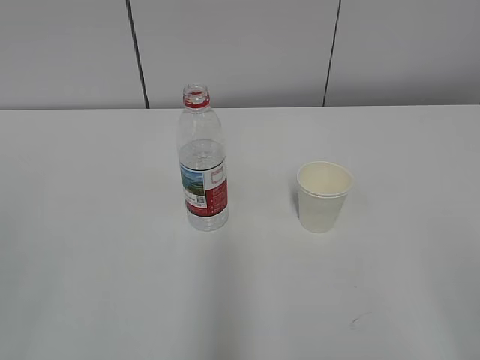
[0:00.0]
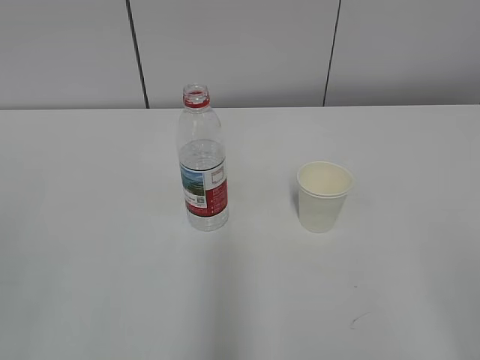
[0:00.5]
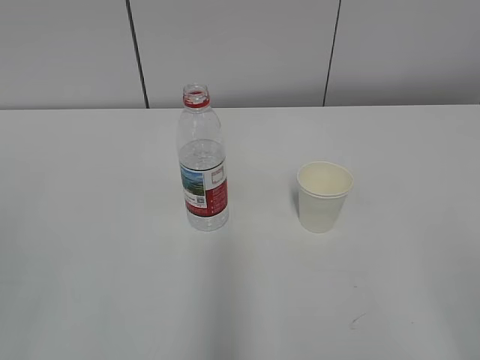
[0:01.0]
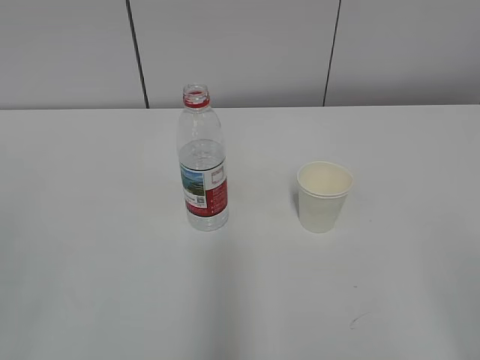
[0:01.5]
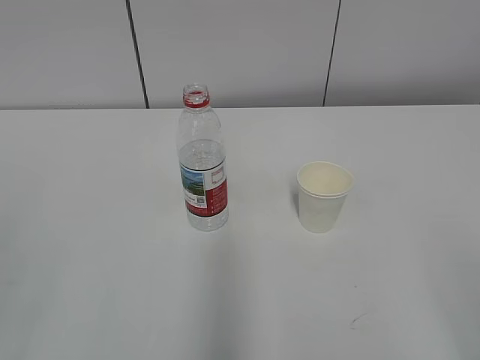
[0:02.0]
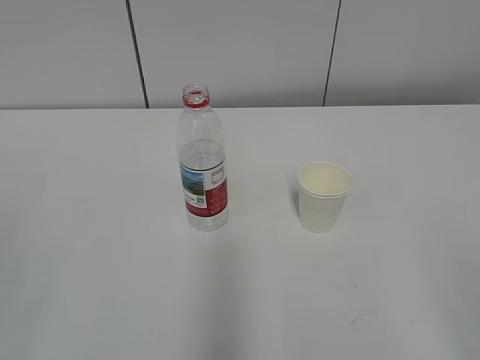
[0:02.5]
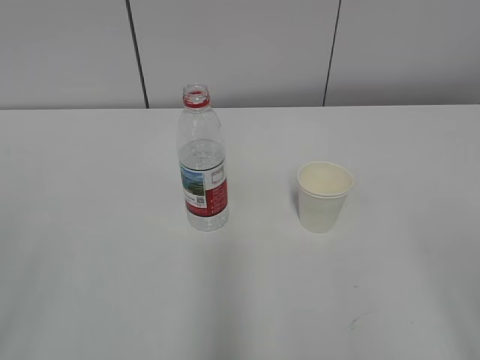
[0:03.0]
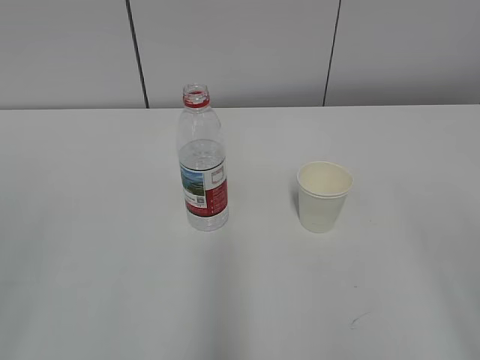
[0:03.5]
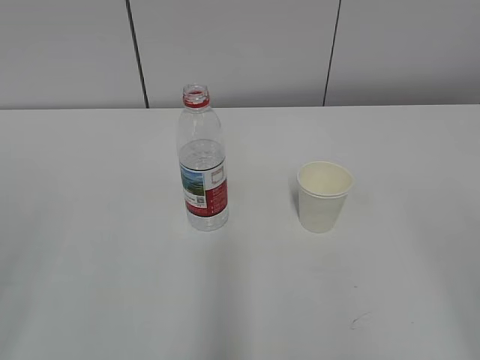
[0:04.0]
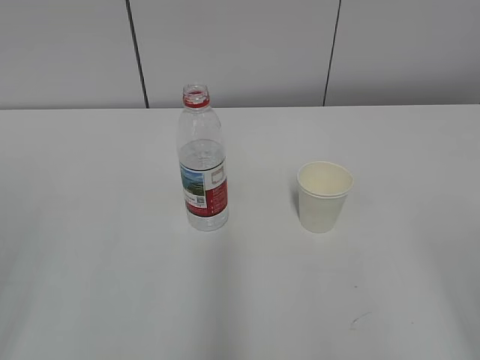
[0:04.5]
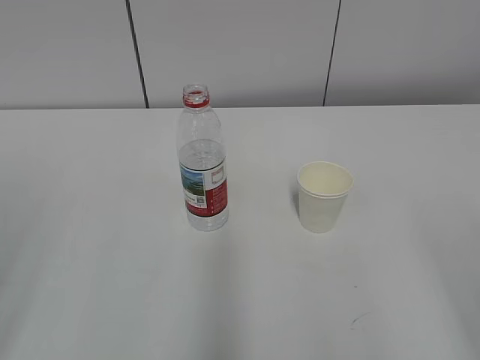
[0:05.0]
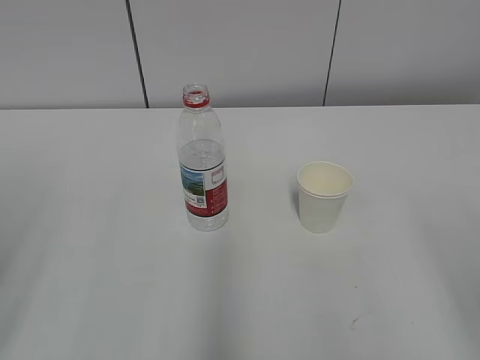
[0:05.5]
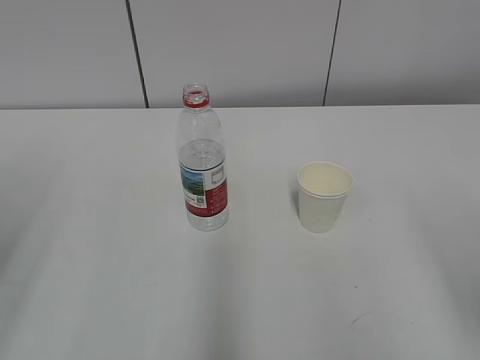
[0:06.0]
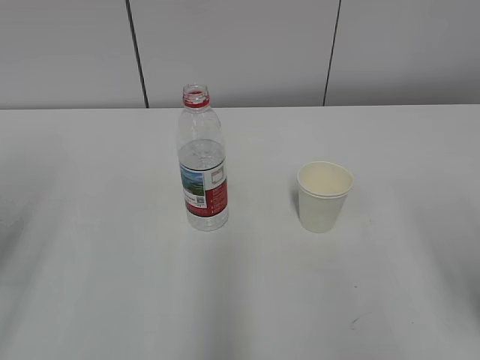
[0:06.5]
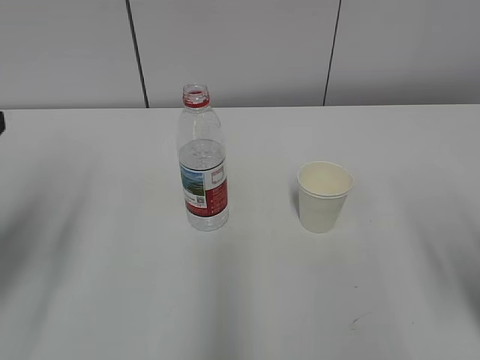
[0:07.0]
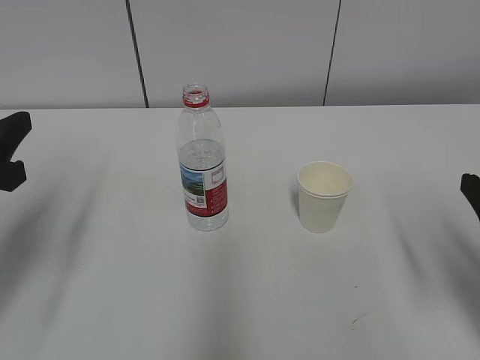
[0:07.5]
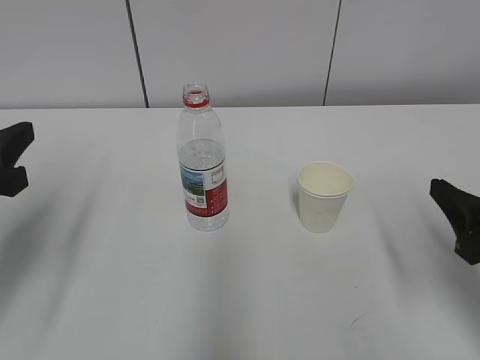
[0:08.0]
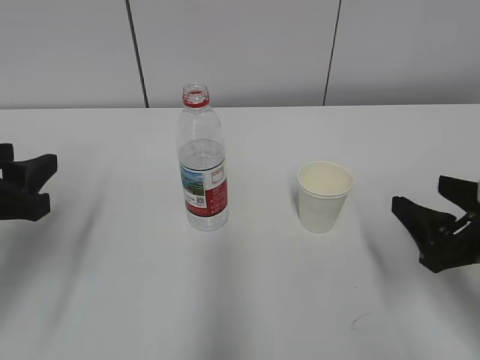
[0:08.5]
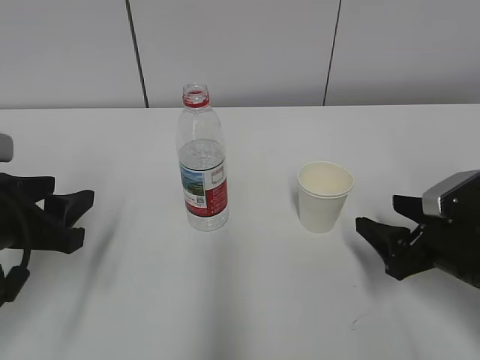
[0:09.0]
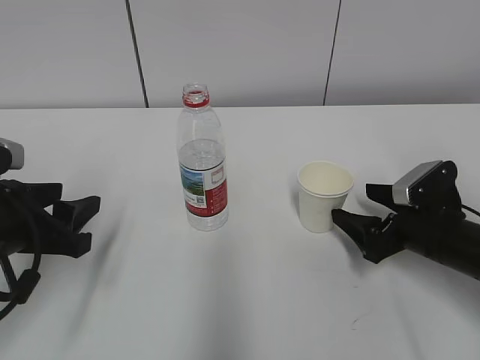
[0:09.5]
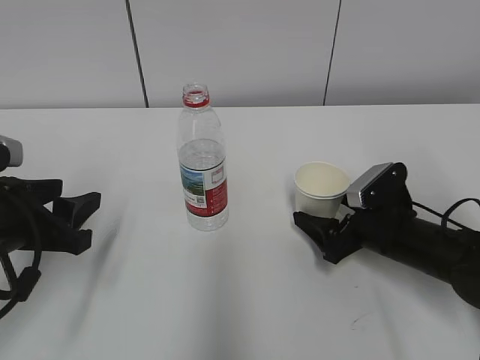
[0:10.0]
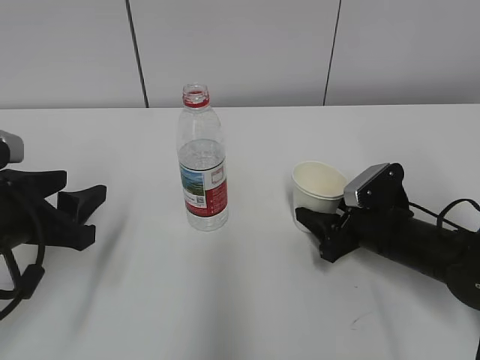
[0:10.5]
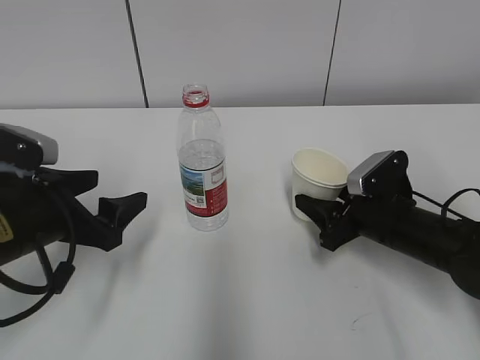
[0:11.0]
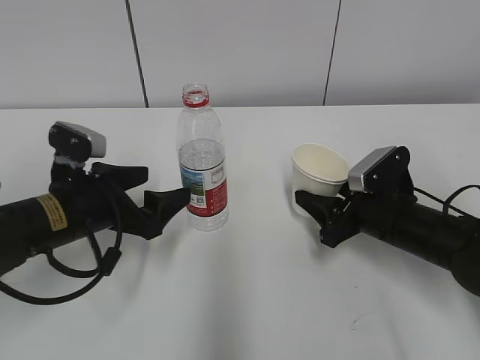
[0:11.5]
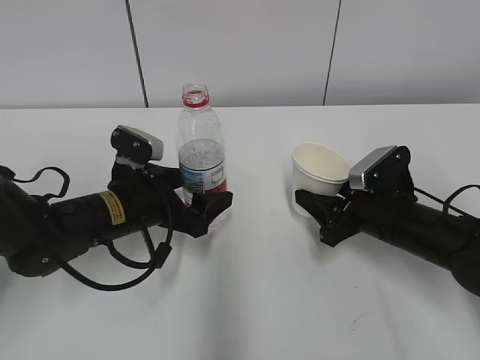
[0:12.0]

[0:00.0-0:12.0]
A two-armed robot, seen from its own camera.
Step, 0:00.0 to 0:08.5: Grab the paper cup with the right hand.
Step, 0:09.0 to 0:10.5: Grab the water bottle with the left hand.
0:06.0 to 0:08.0: Both grippers travel together forward and downward, about 10 cm.
0:08.0 to 0:10.0: The left gripper goes approximately 5 cm downward, while the right gripper travels forward, downward and to the left by roughly 20 cm.
0:10.0 to 0:12.0: The right gripper closes up. The left gripper moves to the right, forward and downward, approximately 15 cm, and opens.

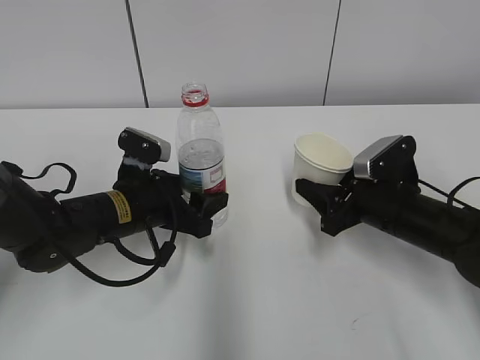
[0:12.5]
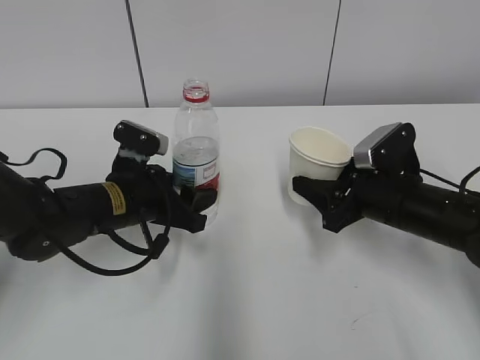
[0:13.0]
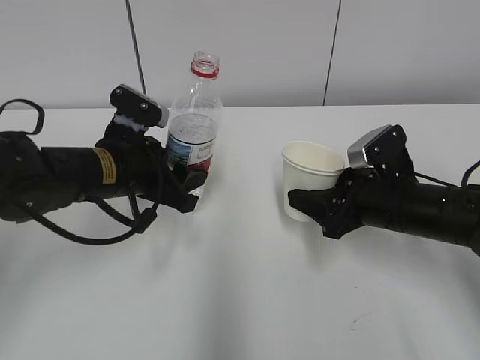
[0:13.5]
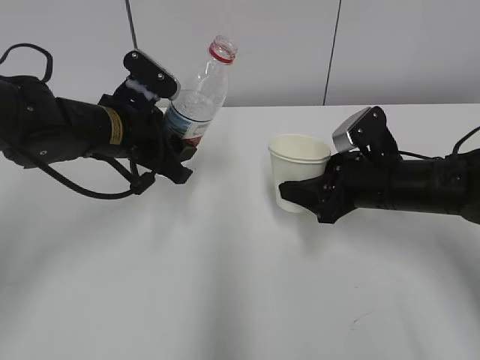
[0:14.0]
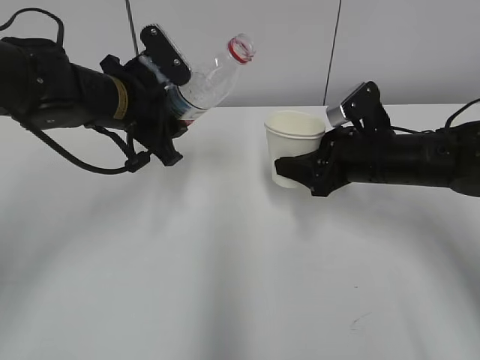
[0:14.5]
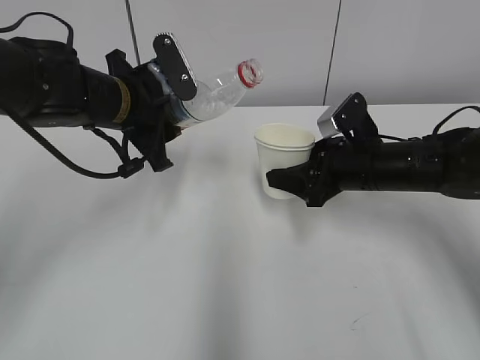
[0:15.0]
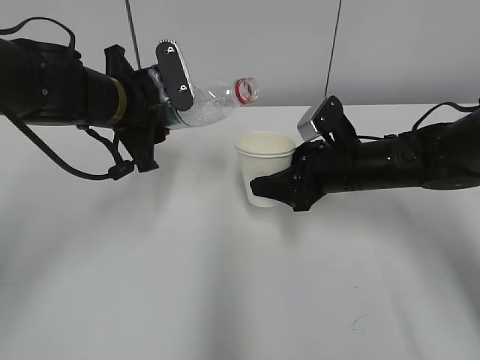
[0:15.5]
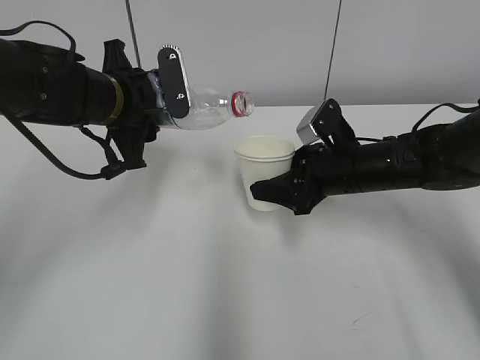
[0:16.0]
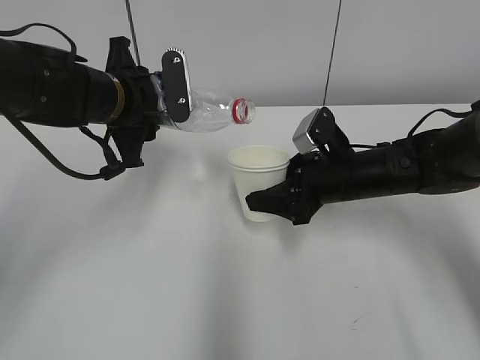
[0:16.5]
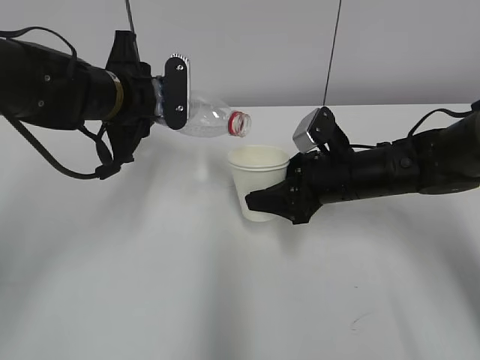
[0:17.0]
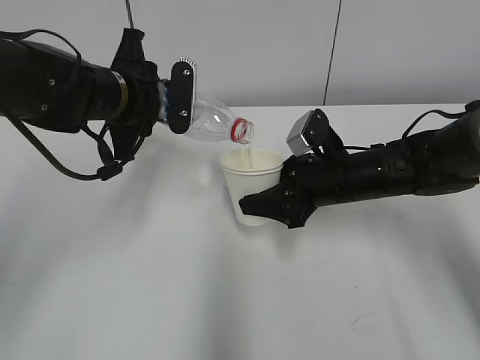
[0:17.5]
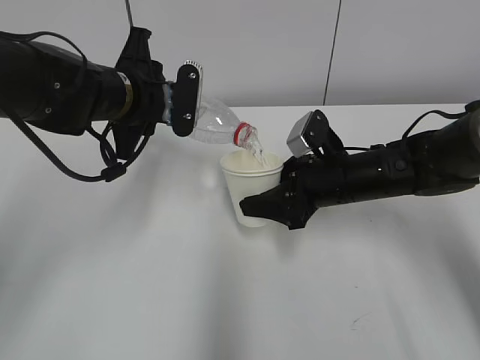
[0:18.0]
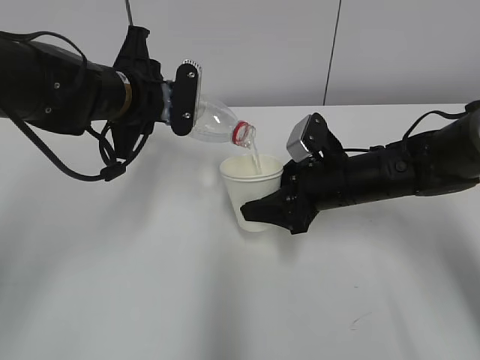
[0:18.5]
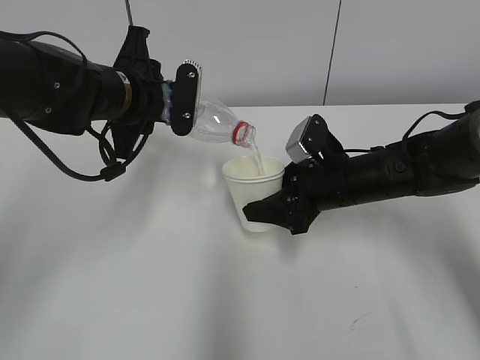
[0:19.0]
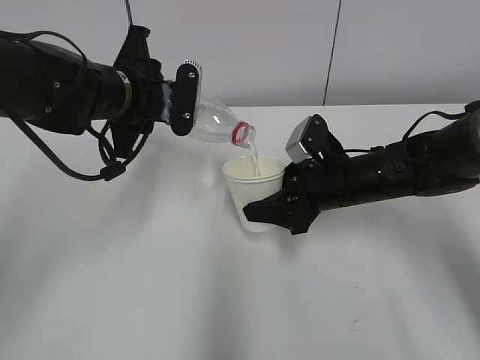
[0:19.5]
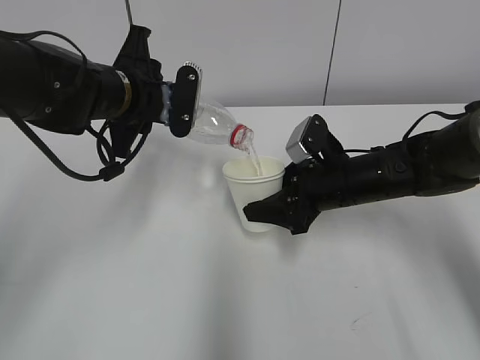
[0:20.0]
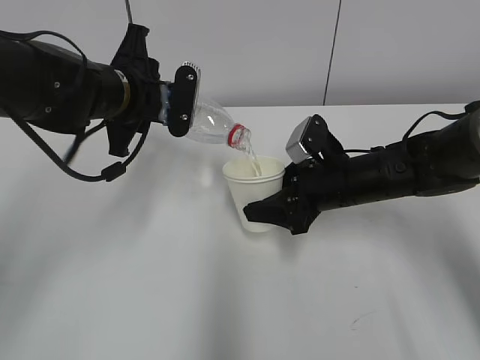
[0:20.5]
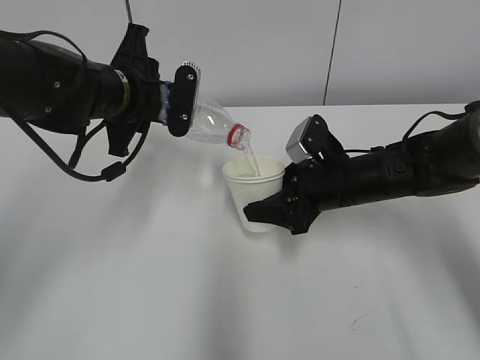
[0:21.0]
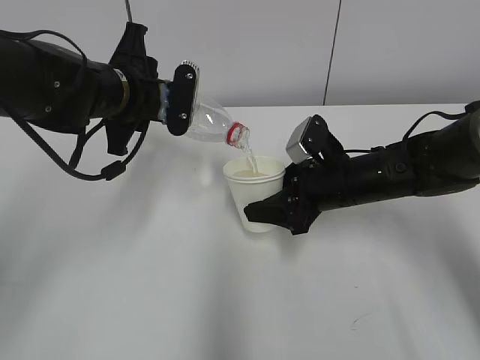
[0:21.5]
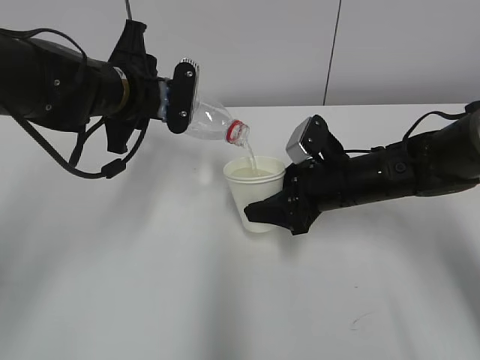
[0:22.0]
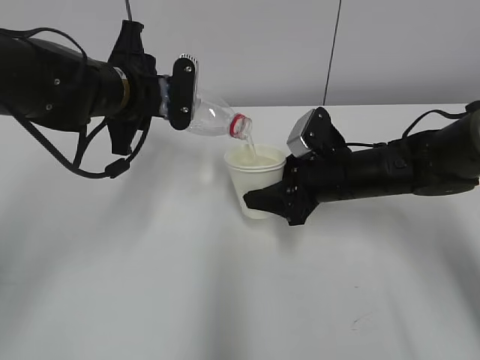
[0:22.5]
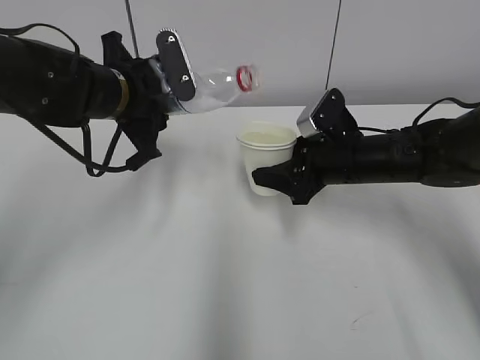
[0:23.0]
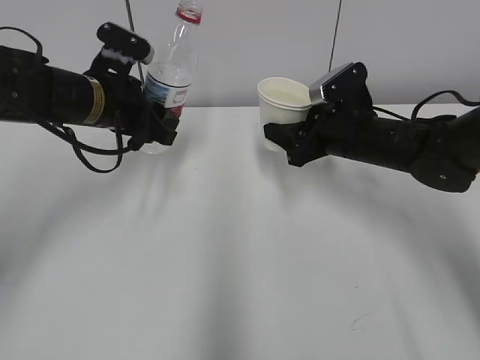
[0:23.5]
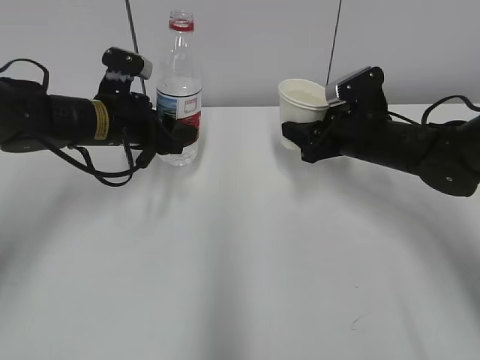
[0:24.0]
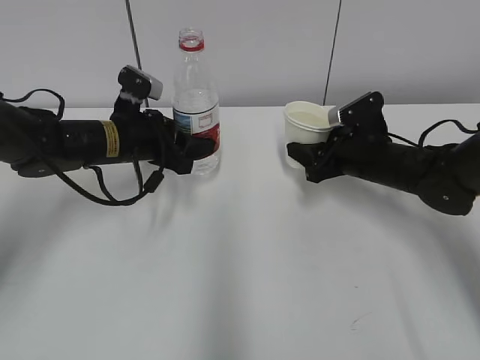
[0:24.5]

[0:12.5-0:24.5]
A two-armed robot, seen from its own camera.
Step, 0:14.5 to 0:18.5: Fill water with the right hand.
Step, 0:14.5 to 0:18.5: Pour water with the left hand.
Step, 0:20.5 to 0:22.0: Place the water bottle with the left hand.
0:12.5 to 0:14.5: The right gripper heads upward, covering some 5 cm; the left gripper moves upward and forward, about 15 cm.
0:16.5 to 0:18.5: The grippers stay close to where they were, moving slightly.
0:18.5 to 0:20.5: The two grippers keep their place.
0:20.5 to 0:22.5: Neither gripper changes place.
0:22.5 to 0:24.5: The right gripper is displaced to the right by approximately 5 cm. Meanwhile the left gripper goes some 10 cm downward.

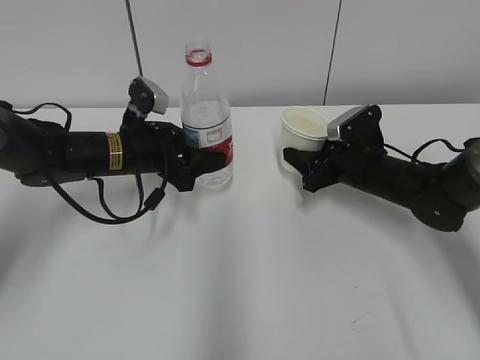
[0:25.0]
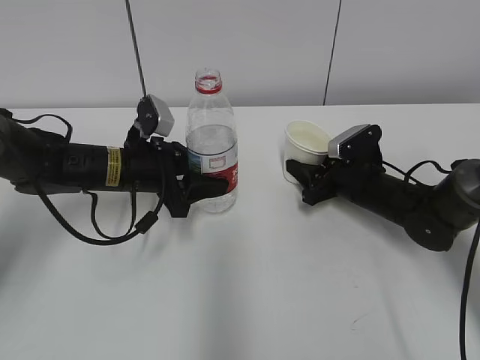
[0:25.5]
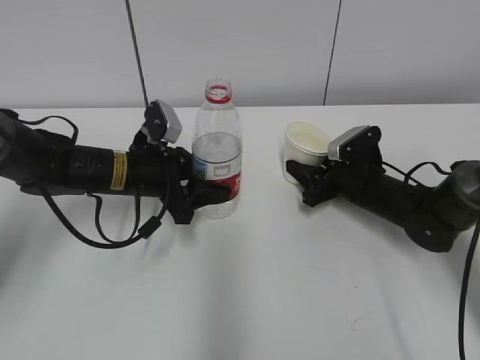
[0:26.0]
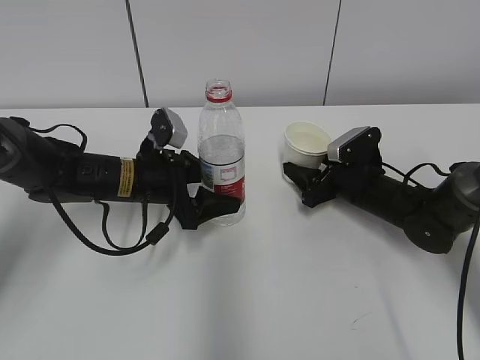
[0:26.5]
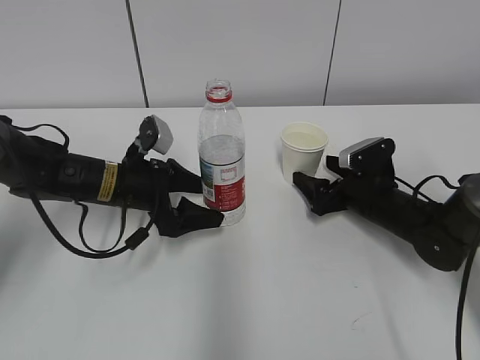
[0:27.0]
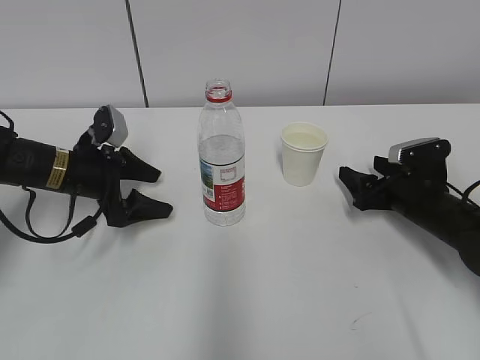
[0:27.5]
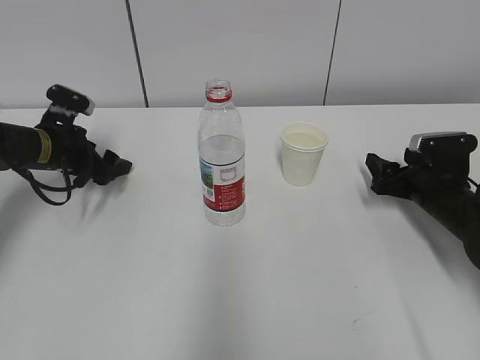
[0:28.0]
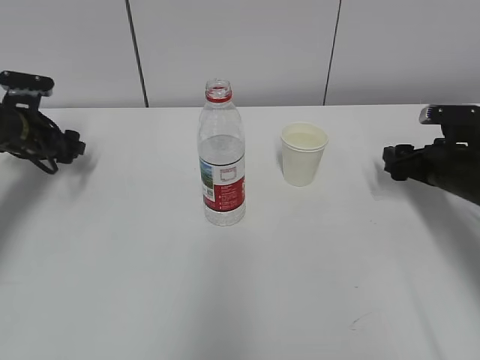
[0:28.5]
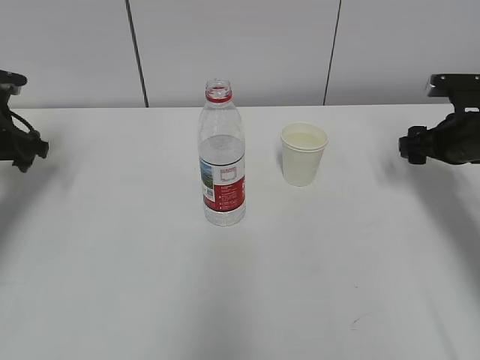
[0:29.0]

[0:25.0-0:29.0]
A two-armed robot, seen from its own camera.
0:25.0 to 0:27.0: The right gripper opens its fingers. Meanwhile the left gripper opens up.
0:27.0 to 0:29.0: The right gripper shifts roughly 15 cm upward and to the right. The left gripper shifts approximately 20 cm to the left and upward.
